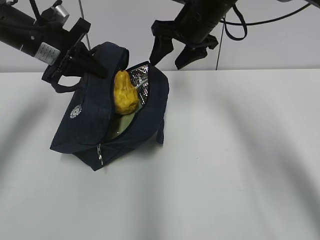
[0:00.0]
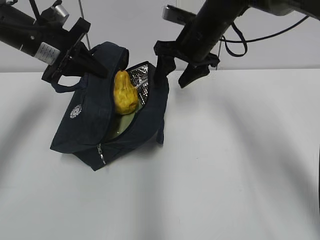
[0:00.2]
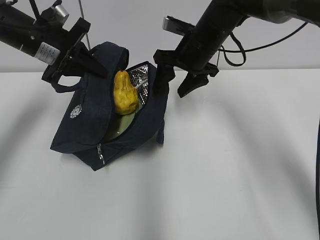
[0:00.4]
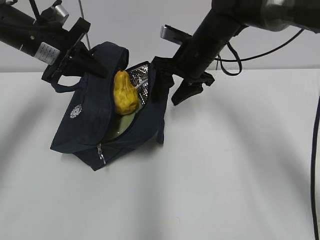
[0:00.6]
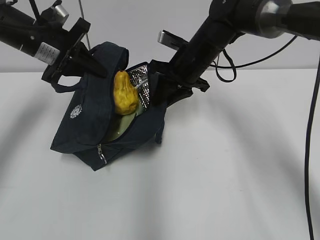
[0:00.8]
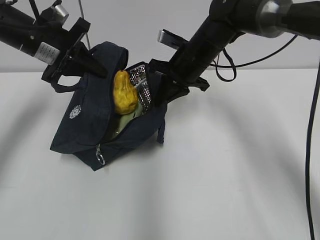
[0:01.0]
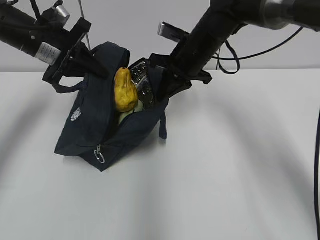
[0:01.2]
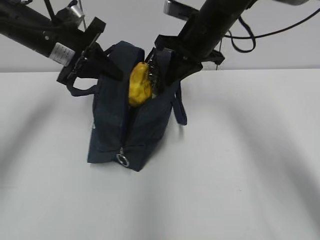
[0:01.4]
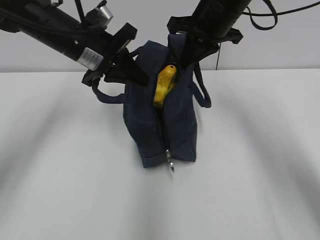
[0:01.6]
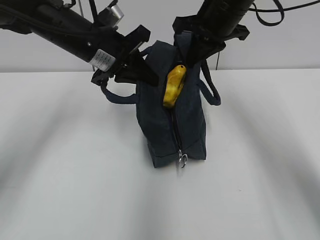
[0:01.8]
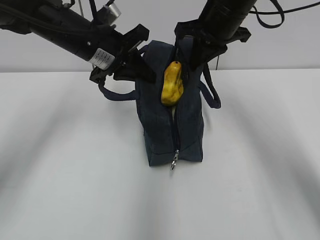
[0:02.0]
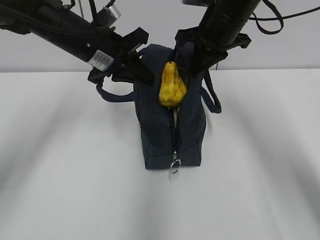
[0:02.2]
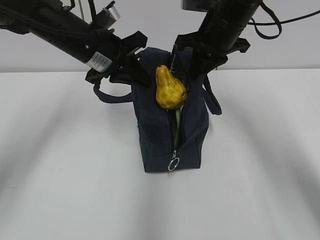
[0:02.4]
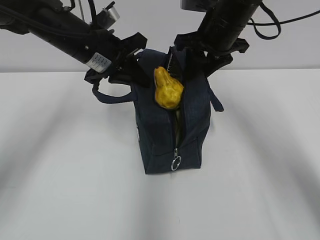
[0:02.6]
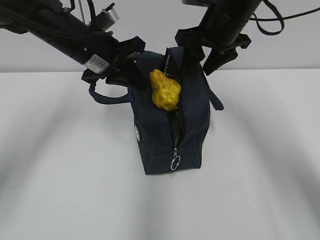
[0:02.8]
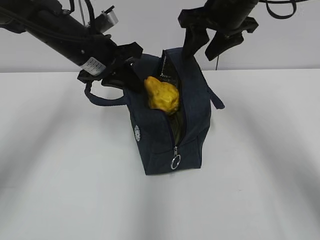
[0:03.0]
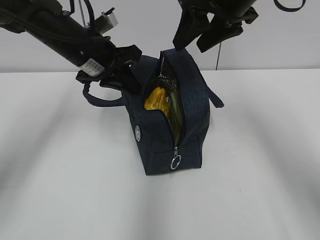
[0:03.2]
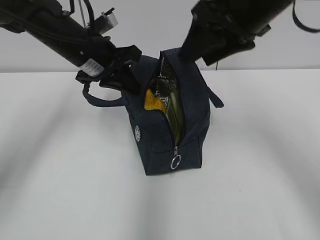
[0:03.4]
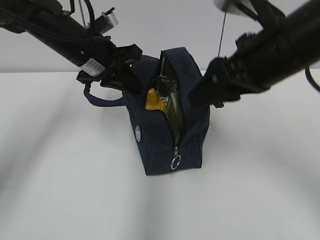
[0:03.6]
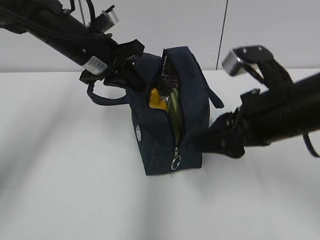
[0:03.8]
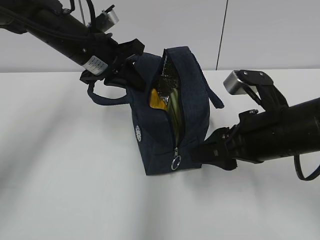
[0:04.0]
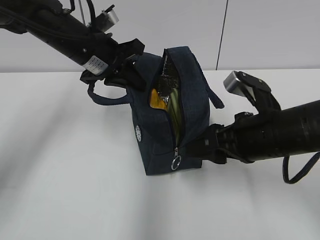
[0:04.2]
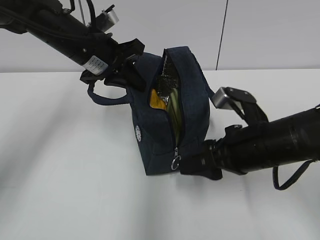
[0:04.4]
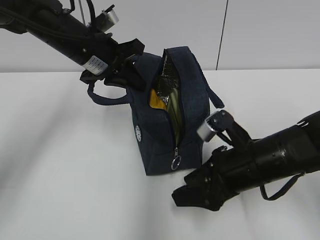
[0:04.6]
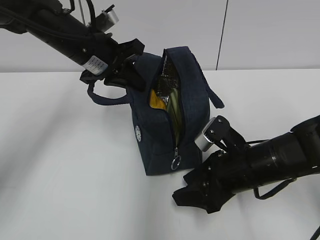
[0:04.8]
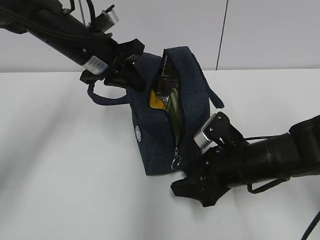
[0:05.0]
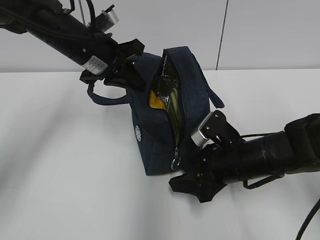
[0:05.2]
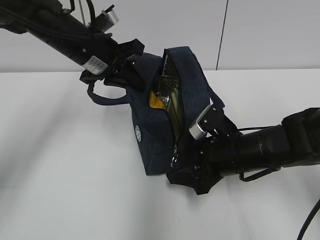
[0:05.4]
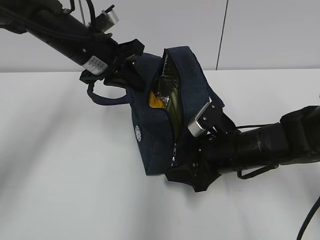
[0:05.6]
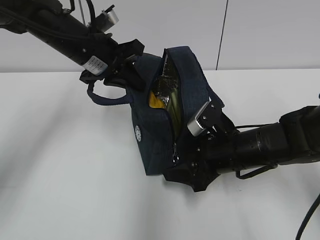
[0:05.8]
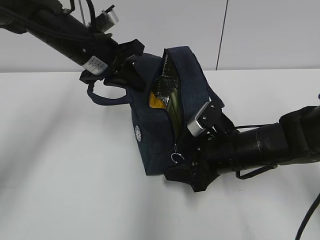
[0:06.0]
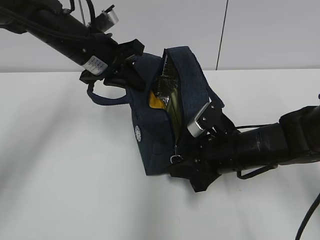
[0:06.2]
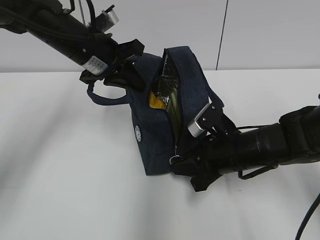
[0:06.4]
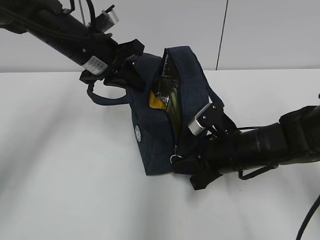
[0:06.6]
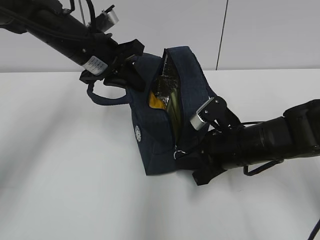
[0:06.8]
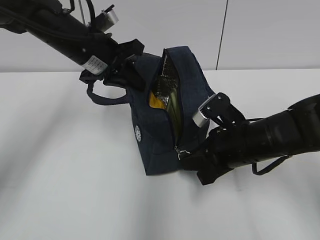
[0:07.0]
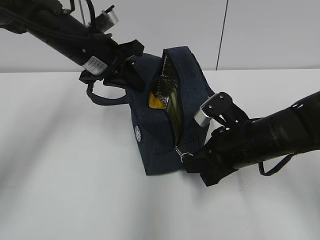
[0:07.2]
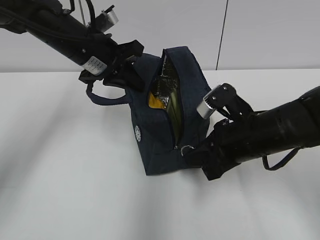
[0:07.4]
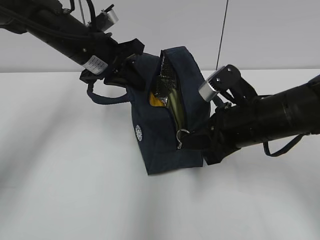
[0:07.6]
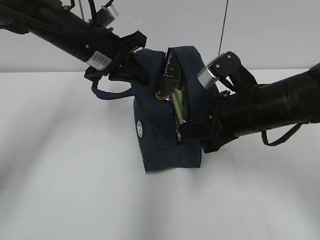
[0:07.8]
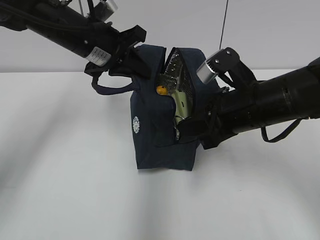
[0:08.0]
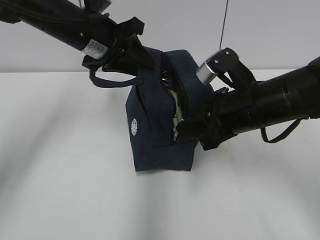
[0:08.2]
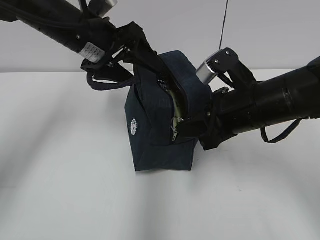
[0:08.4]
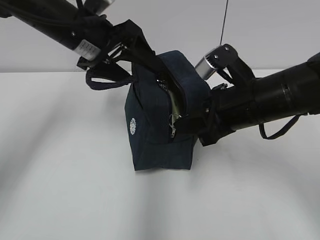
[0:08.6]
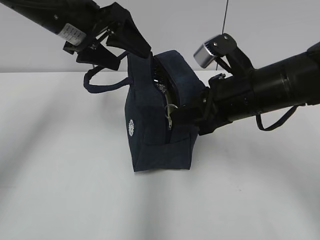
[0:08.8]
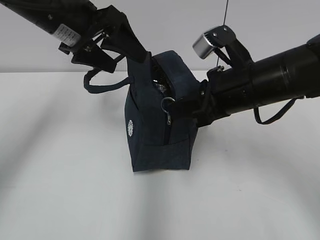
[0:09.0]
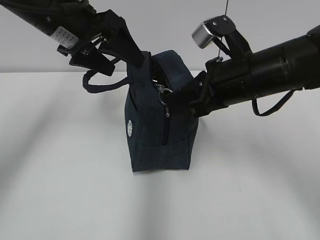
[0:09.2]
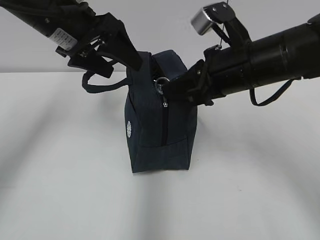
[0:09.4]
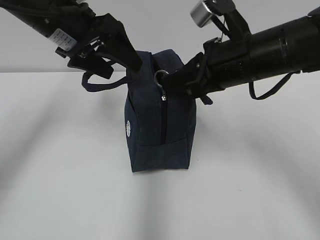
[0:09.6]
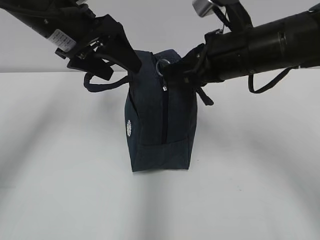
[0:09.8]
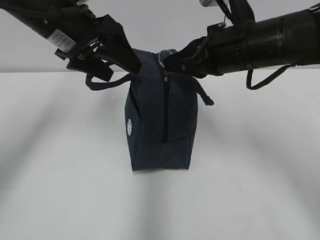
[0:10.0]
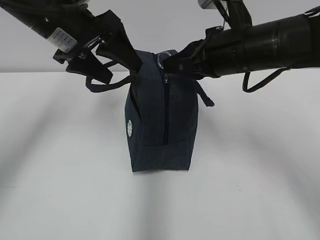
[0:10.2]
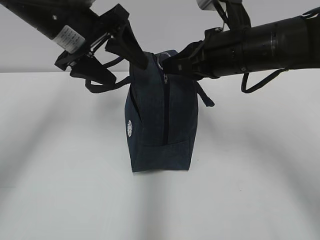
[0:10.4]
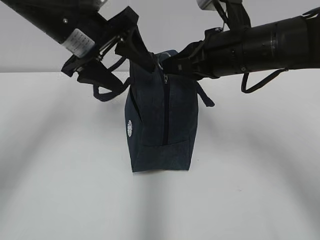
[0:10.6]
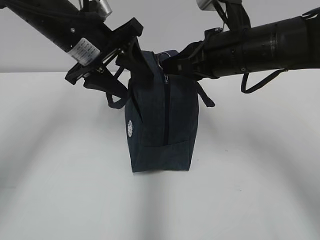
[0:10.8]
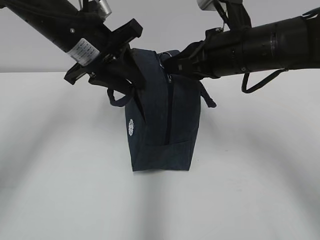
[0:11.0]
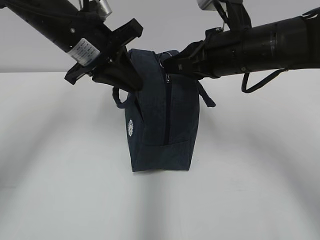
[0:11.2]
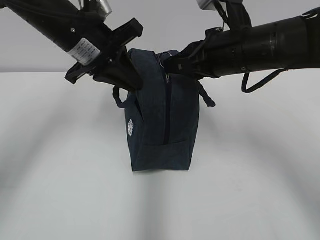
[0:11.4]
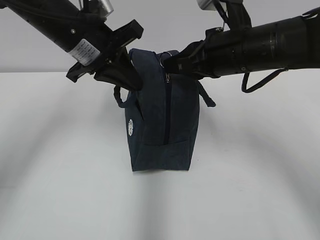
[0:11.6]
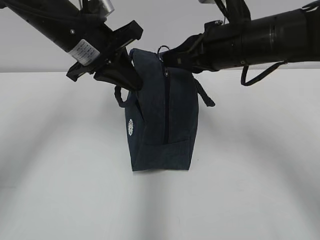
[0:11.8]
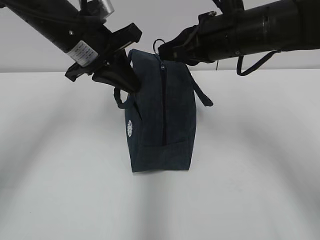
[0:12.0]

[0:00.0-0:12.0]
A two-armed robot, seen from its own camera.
0:00.0 to 0:01.6: The left gripper is displaced to the right by about 5 cm. Meanwhile the right gripper moves some 5 cm downward and comes back, and closes up.
0:01.6 to 0:03.0: The right gripper opens.
0:03.0 to 0:04.4: The right gripper heads downward and backward, covering some 20 cm.
0:04.4 to 0:06.0: The right gripper goes some 5 cm downward.
0:06.0 to 0:07.6: The right gripper is displaced upward by approximately 5 cm, and closes its fingers.
0:07.6 to 0:09.0: The left gripper travels upward by roughly 5 cm, and opens. Meanwhile the right gripper shifts by roughly 5 cm.
0:09.0 to 0:10.4: There are only small adjustments of the grippers.
0:10.4 to 0:12.0: The left gripper closes.

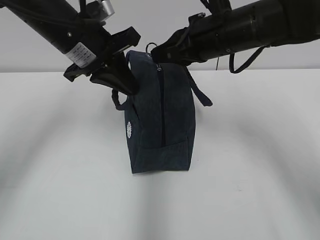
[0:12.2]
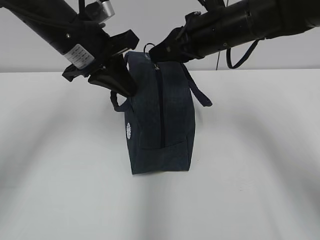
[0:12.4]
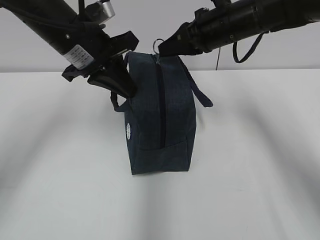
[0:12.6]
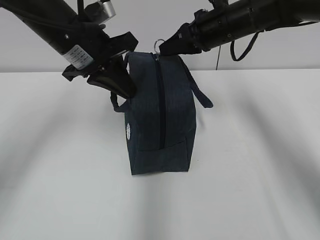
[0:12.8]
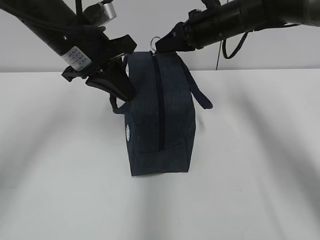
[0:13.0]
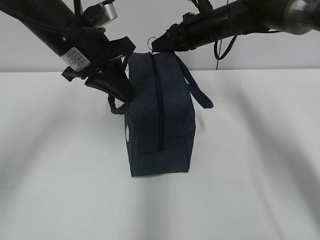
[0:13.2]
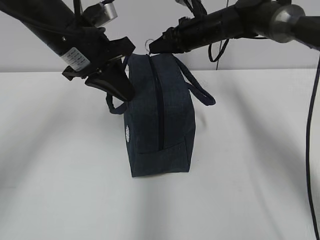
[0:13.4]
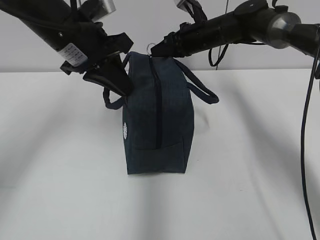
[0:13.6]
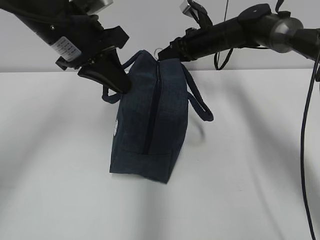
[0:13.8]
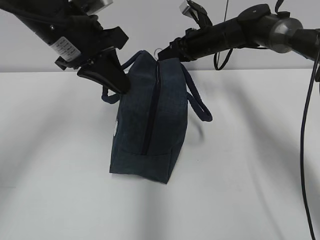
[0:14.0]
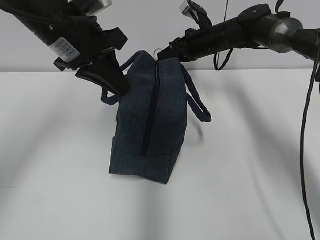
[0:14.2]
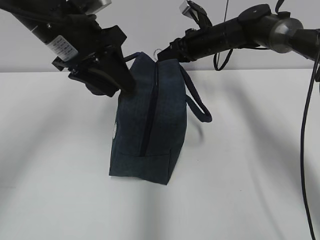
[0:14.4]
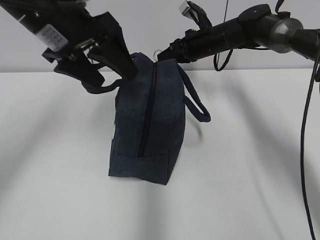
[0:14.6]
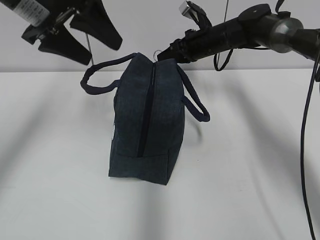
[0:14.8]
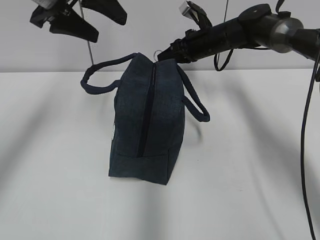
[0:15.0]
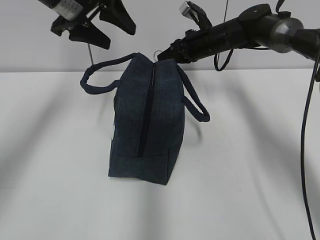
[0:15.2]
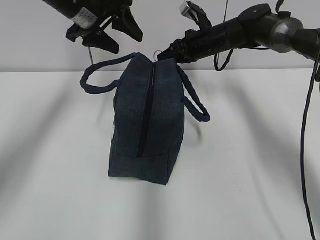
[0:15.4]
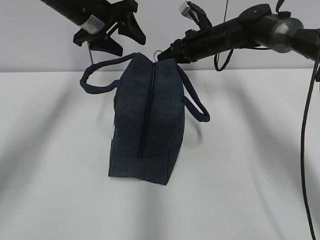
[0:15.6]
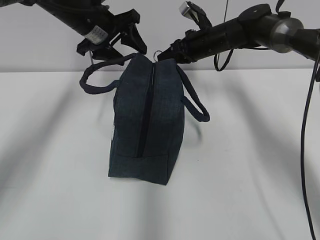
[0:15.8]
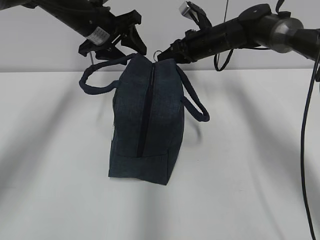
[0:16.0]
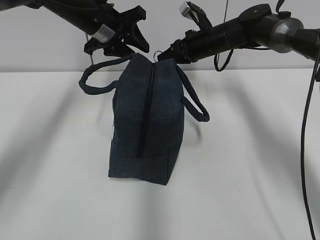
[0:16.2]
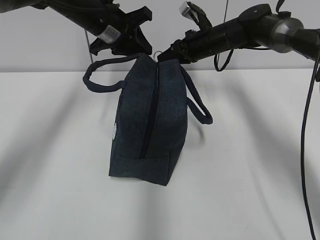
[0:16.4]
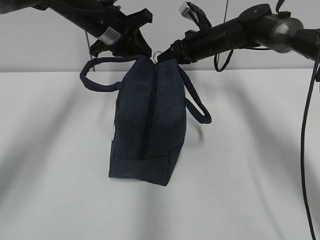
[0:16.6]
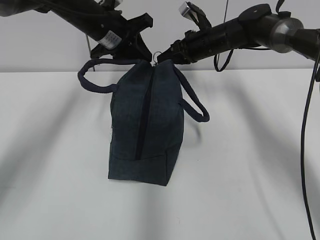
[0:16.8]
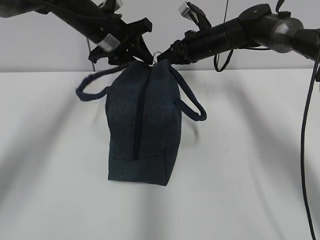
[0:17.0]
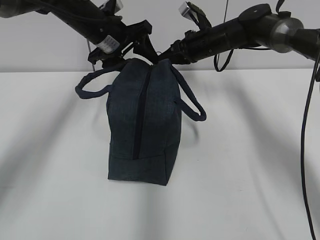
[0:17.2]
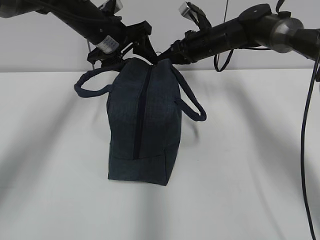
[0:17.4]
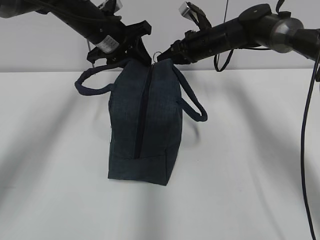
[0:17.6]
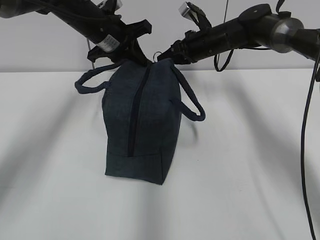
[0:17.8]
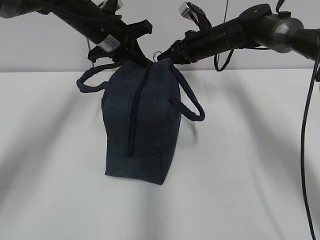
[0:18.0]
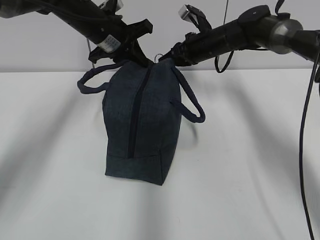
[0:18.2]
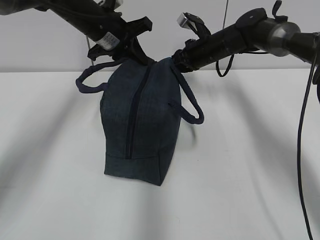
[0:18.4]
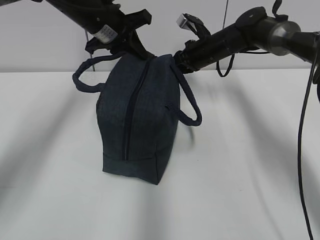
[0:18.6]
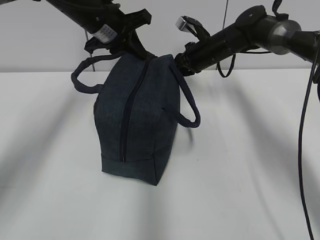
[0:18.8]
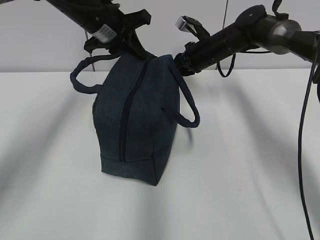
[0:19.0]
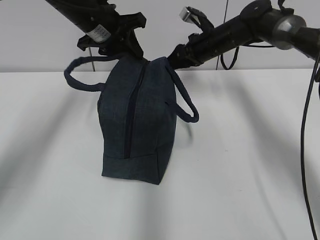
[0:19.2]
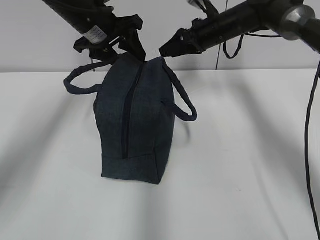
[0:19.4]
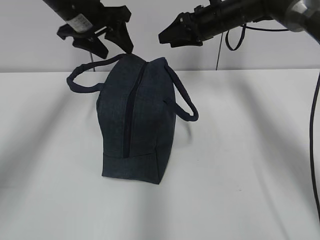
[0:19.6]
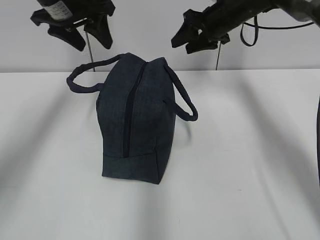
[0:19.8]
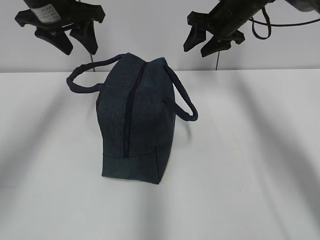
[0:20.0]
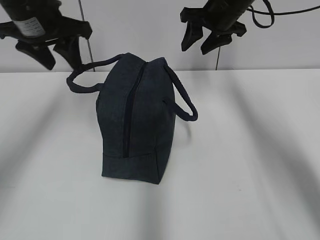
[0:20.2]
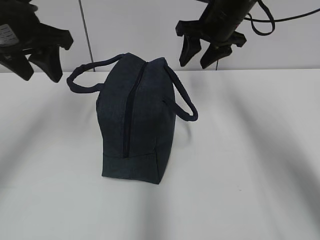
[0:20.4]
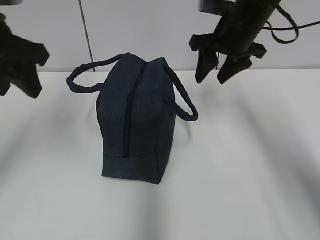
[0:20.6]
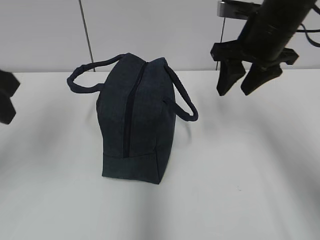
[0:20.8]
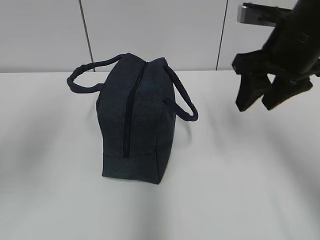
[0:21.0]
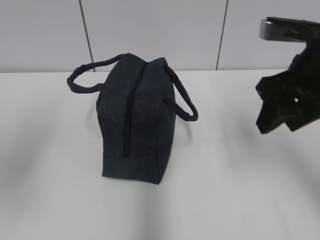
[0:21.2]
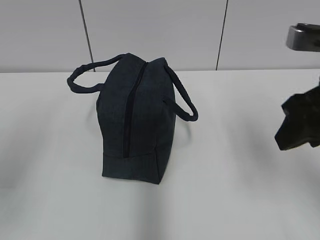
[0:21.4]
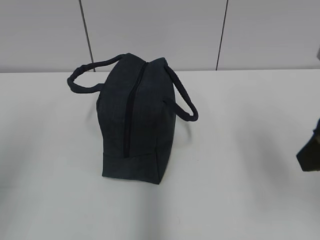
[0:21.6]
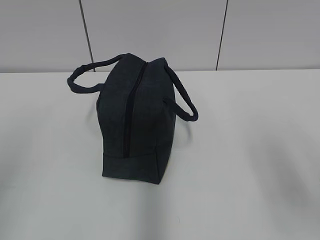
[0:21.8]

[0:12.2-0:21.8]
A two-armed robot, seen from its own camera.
0:12.2 to 0:13.8: The right gripper is displaced forward and downward by some 20 cm.
0:13.8 to 0:15.4: The left gripper travels forward by roughly 10 cm, and opens up.
0:15.4 to 0:17.0: The left gripper is displaced downward by about 5 cm.
0:17.0 to 0:18.6: The left gripper closes up.
0:18.6 to 0:20.2: The left gripper shifts about 10 cm to the left and backward, and opens, while the right gripper heads upward, covering roughly 10 cm, and opens.
0:20.2 to 0:21.8: The grippers both shift backward by about 35 cm.

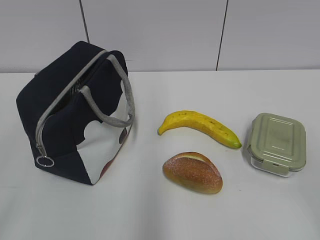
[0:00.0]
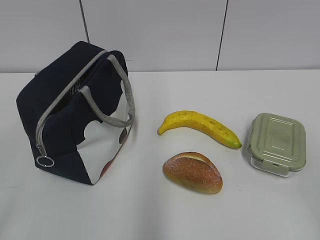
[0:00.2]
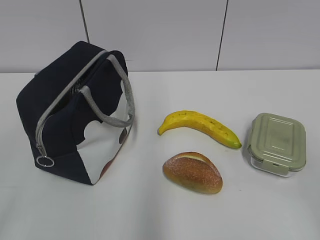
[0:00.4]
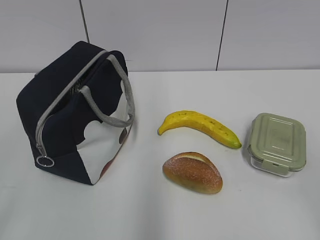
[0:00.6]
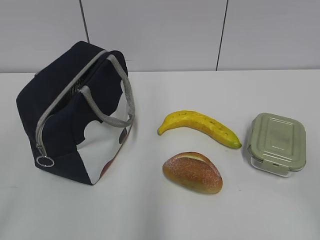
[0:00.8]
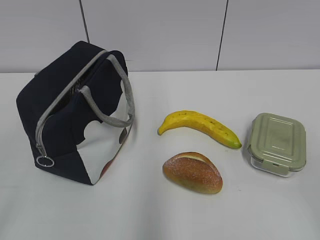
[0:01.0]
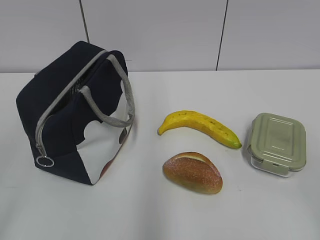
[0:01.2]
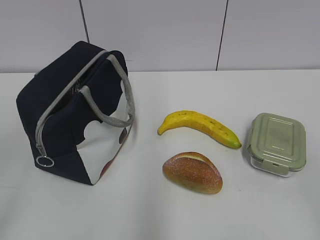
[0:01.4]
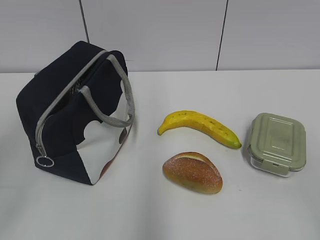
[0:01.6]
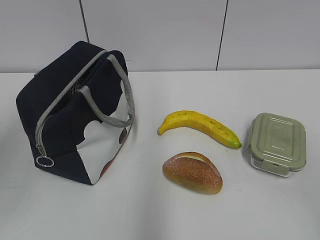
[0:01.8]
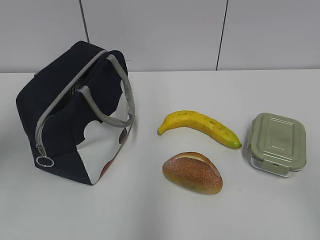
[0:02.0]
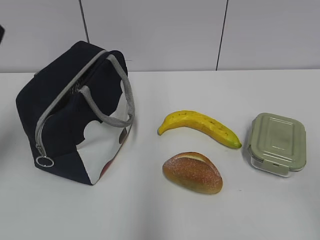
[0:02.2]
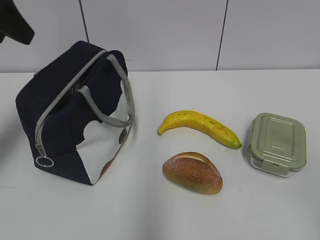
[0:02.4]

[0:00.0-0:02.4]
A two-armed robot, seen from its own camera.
0:01.2 to 0:02.4: The left gripper goes some 30 cm forward.
